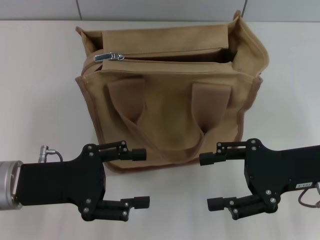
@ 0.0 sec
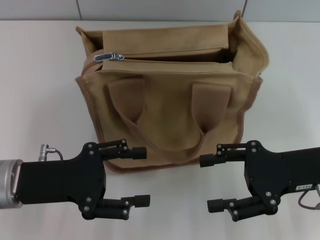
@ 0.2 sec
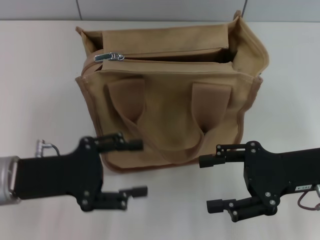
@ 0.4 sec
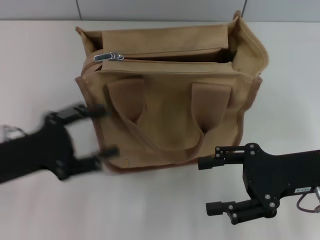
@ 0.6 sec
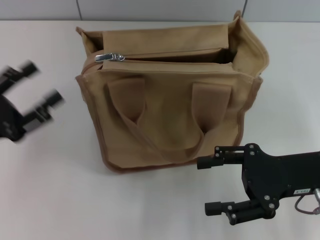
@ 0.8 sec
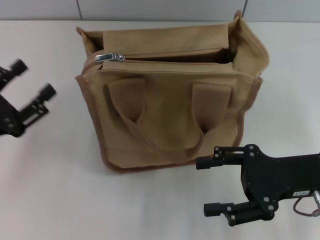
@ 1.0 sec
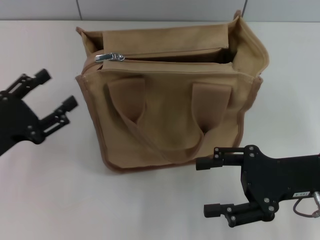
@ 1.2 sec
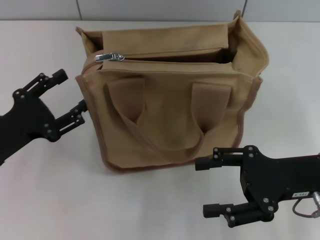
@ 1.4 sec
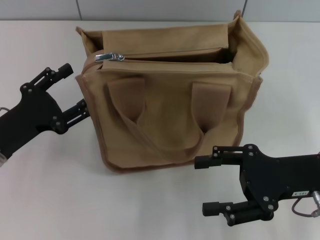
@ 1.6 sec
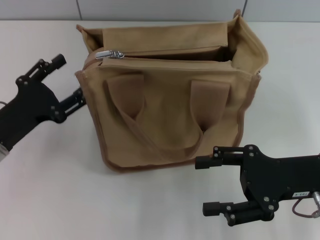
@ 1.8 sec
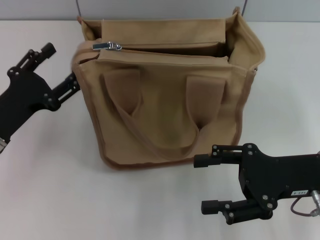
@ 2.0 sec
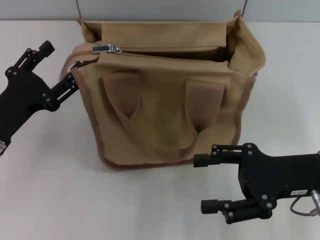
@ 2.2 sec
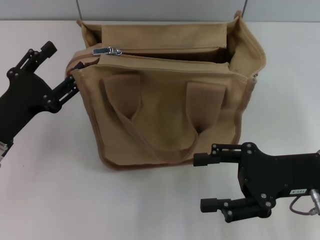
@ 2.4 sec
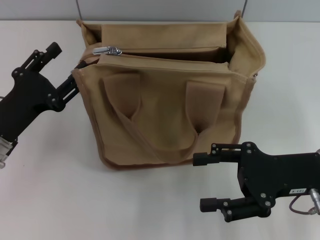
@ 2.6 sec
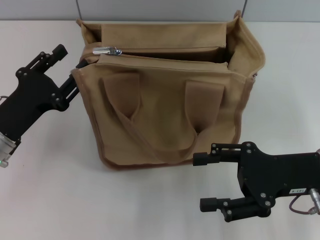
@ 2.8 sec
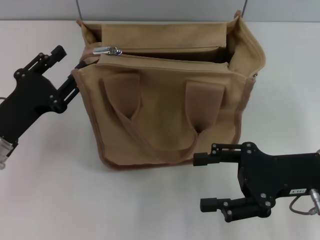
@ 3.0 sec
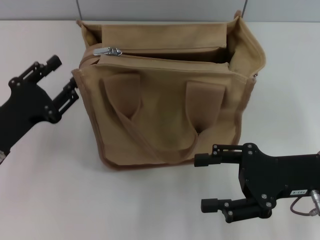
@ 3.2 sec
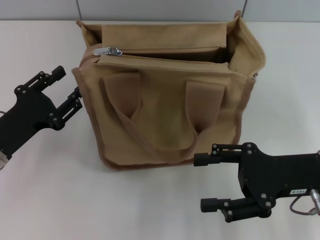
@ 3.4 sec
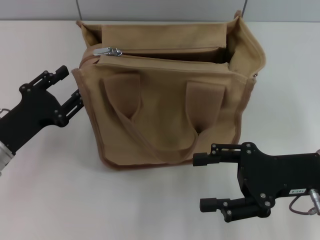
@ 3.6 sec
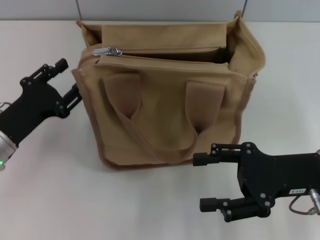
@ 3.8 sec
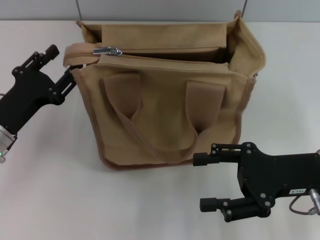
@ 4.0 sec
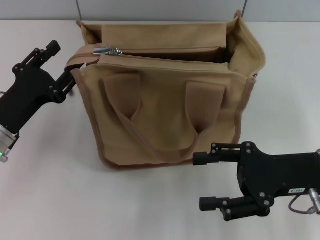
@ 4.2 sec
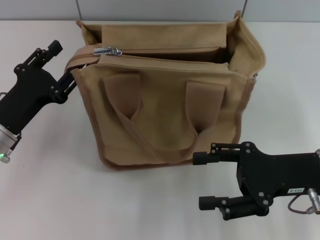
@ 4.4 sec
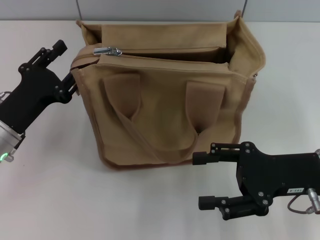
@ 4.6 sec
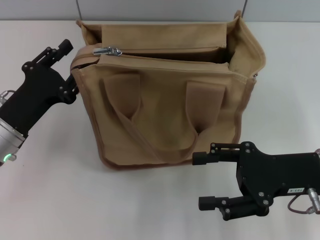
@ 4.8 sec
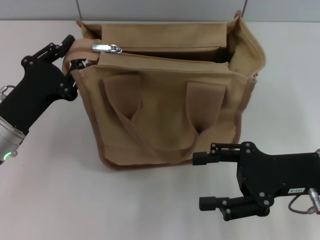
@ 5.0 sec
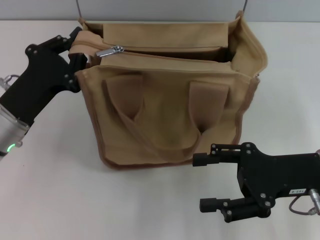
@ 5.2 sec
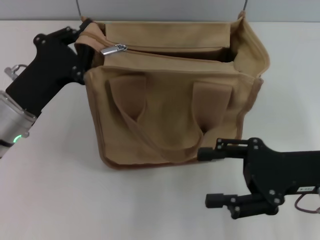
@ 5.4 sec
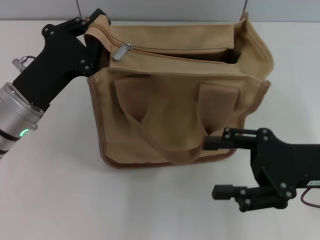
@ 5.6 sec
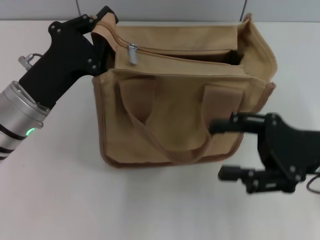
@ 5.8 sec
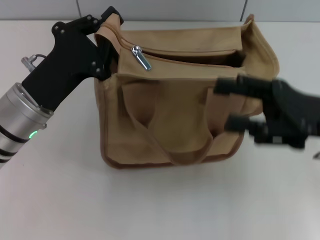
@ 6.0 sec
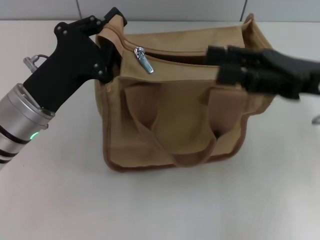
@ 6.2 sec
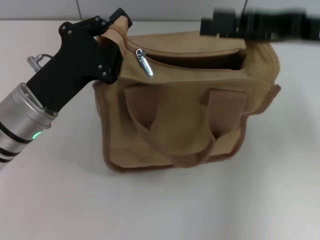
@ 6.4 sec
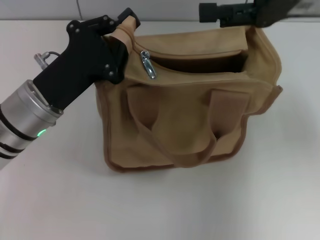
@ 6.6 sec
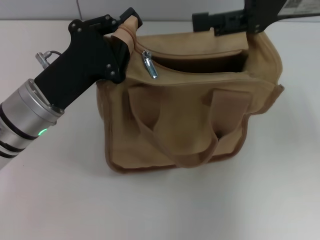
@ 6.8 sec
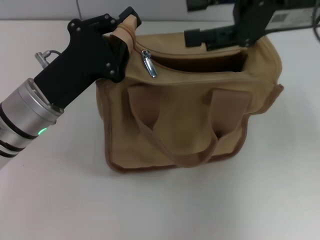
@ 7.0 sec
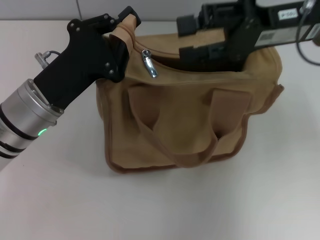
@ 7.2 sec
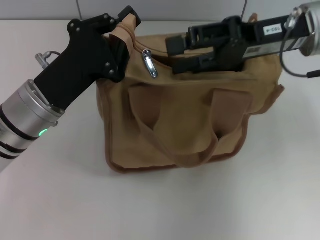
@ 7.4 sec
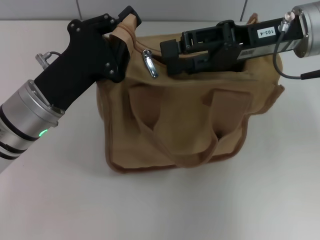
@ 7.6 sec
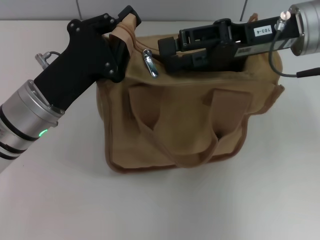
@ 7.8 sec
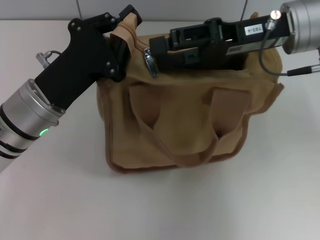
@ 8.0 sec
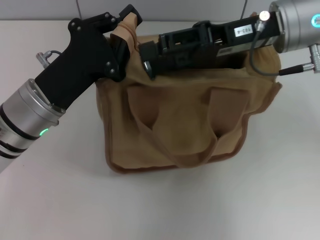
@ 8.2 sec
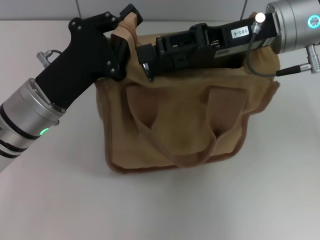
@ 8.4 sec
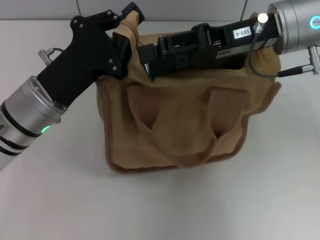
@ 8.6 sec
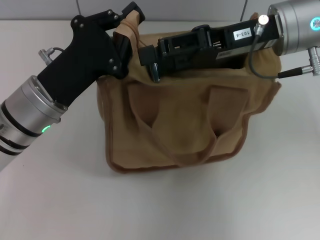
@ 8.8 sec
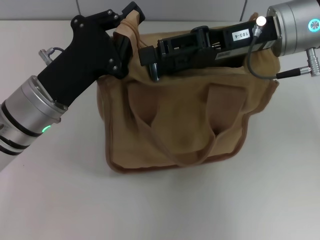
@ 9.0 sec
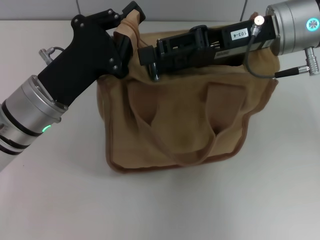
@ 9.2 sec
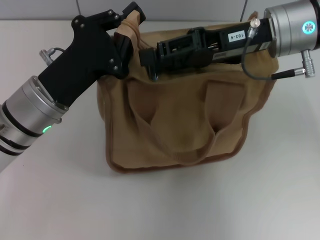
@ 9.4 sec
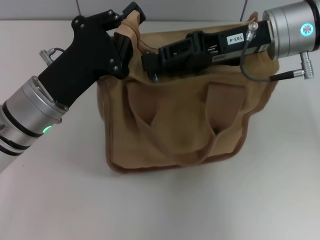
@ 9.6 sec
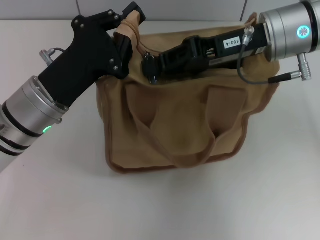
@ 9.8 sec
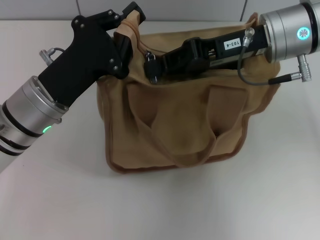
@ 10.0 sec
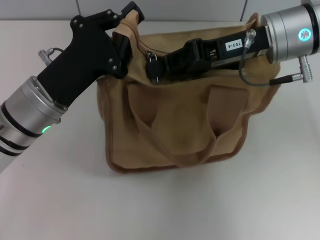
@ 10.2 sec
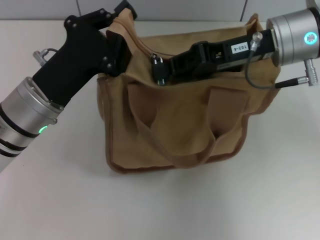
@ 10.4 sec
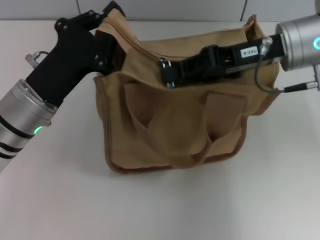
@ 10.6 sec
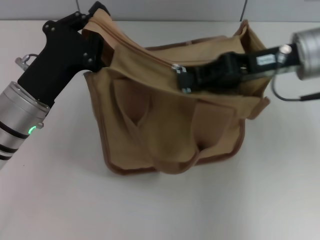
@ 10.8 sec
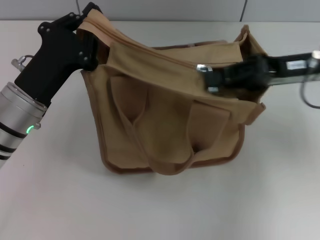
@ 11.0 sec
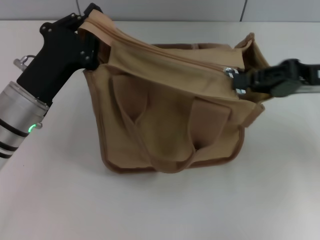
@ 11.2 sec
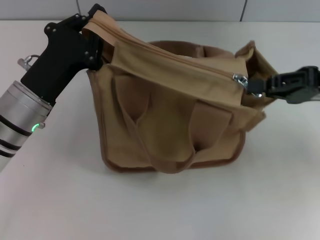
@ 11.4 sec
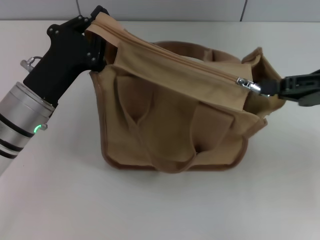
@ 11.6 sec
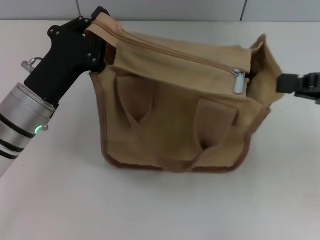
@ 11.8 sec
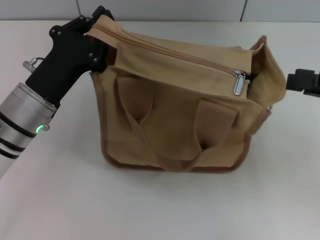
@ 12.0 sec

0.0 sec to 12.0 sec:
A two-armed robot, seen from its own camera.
Step, 0.0 sec to 11.6 sec: Pull up the zipper with your right hand.
1.6 sec to 4.4 sec: The grippers make only small movements.
4.4 sec to 6.0 sec: The left gripper is displaced to the right by some 5 cm, and closes. Meanwhile the right gripper heads upward, covering about 5 cm.
6.0 sec to 7.6 sec: The right gripper goes some 15 cm forward, upward and to the left.
7.6 sec to 9.0 sec: The grippers make only small movements.
9.0 sec to 10.4 sec: The right gripper closes.
10.4 sec to 12.0 sec: The right gripper goes some 20 cm to the right and backward.

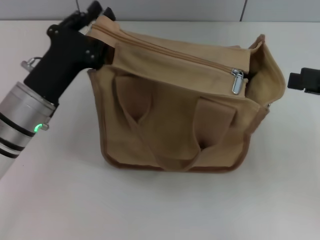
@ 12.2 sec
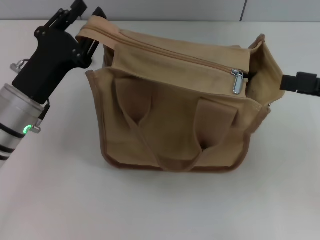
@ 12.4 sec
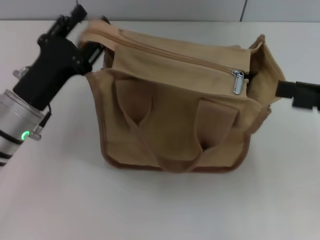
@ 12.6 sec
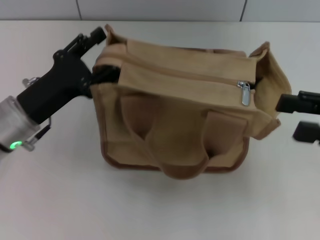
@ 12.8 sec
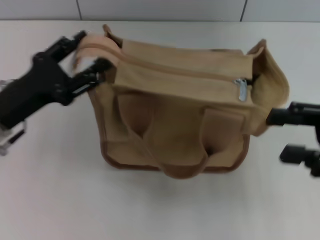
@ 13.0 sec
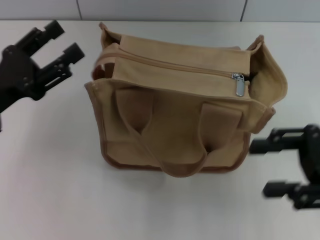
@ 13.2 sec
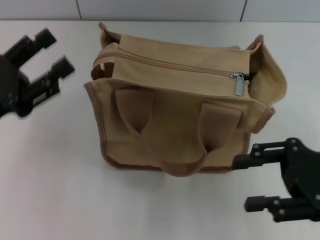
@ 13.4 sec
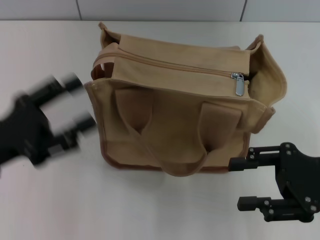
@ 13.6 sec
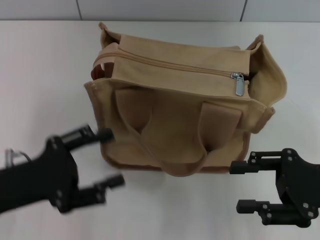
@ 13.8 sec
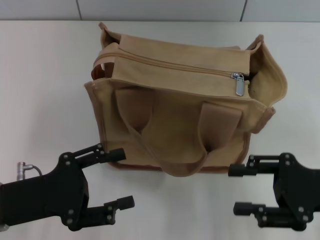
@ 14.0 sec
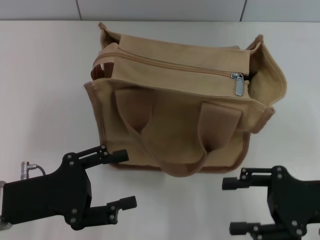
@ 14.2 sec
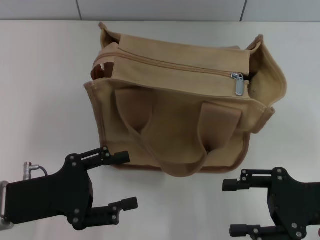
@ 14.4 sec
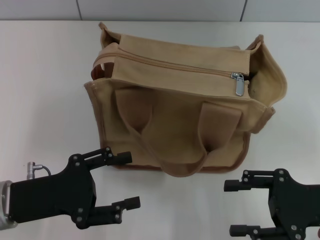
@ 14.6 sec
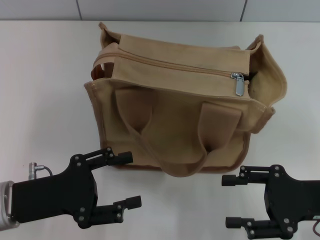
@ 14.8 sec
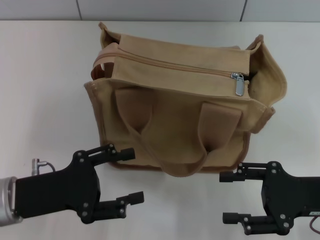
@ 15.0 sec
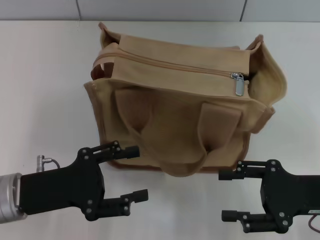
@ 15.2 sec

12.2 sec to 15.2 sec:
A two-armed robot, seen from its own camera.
Step, 12.2 sec to 13.0 sec: Grab the zipper with your left hand.
12.2 sec to 13.8 sec: The right gripper is displaced downward, to the left and backward by some 10 cm, and opens; the left gripper moves backward and to the left, about 10 cm, and opens up.
13.8 sec to 15.2 sec: The grippers move only a little.
